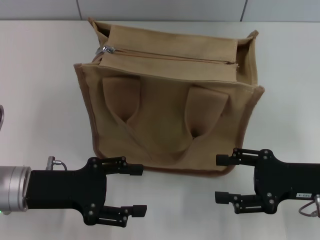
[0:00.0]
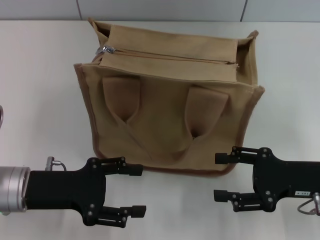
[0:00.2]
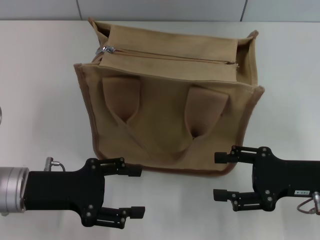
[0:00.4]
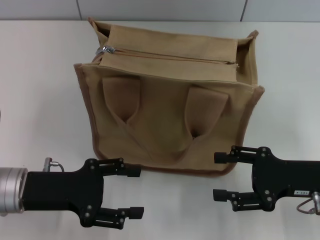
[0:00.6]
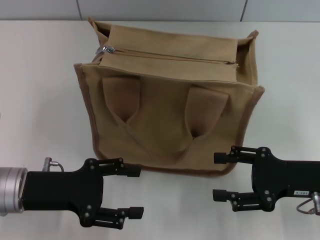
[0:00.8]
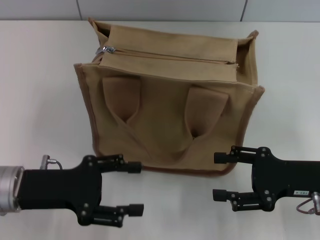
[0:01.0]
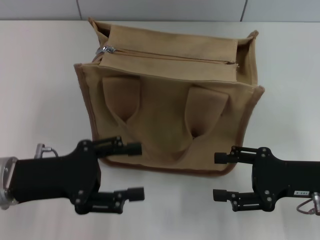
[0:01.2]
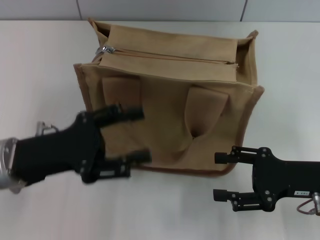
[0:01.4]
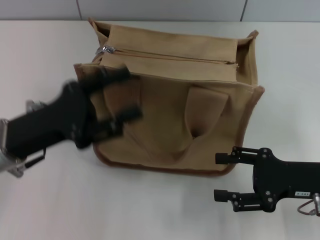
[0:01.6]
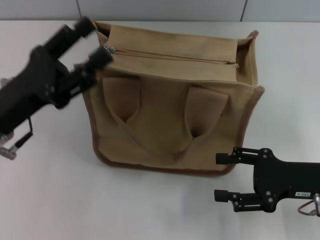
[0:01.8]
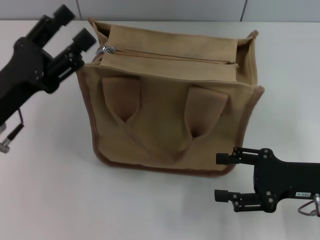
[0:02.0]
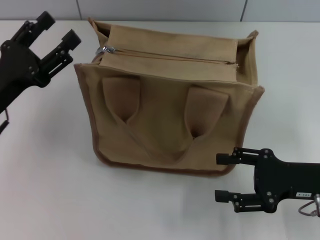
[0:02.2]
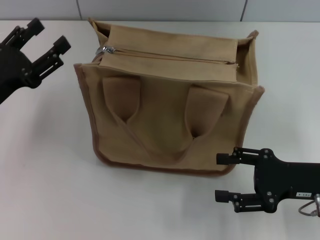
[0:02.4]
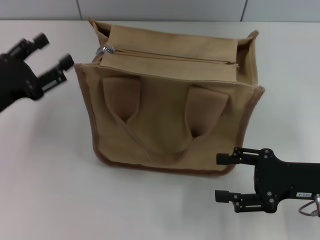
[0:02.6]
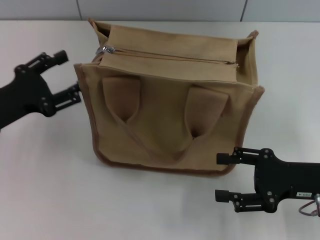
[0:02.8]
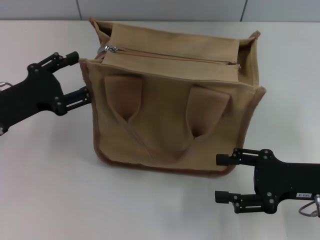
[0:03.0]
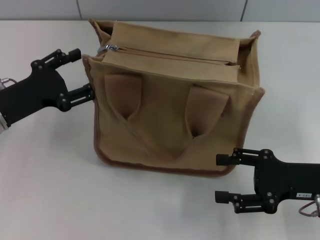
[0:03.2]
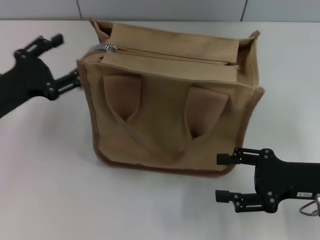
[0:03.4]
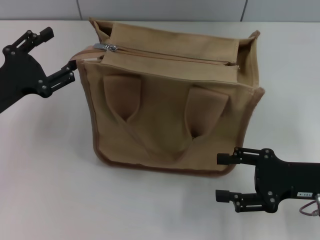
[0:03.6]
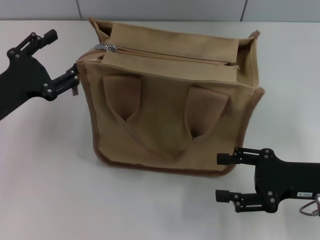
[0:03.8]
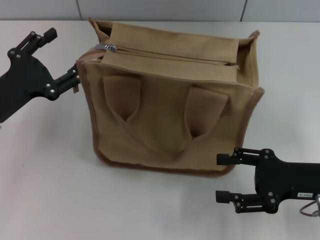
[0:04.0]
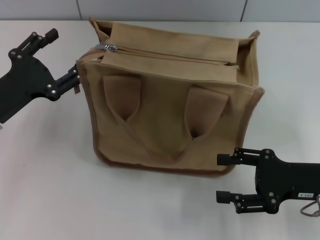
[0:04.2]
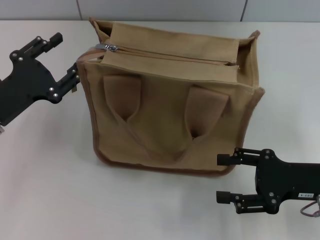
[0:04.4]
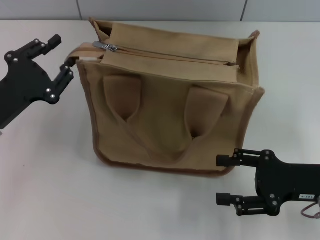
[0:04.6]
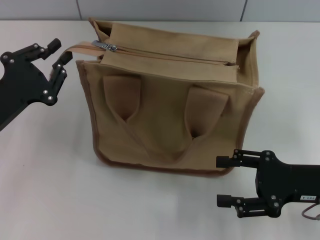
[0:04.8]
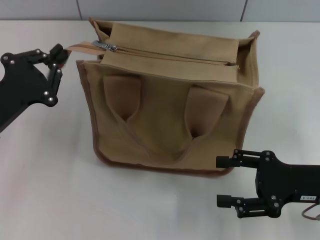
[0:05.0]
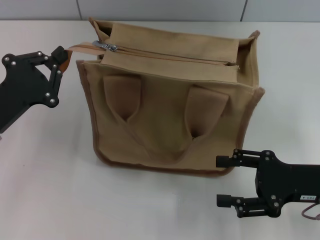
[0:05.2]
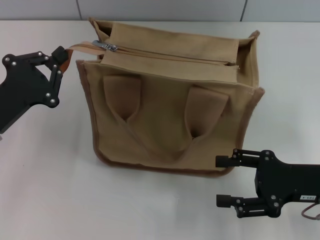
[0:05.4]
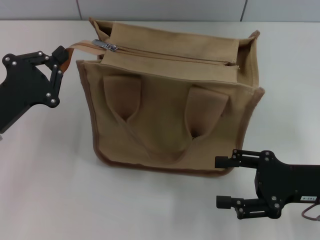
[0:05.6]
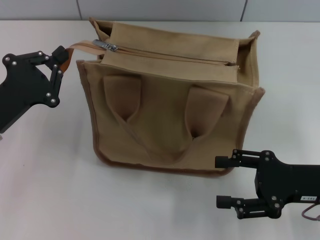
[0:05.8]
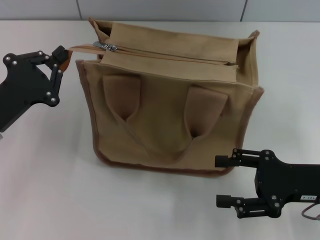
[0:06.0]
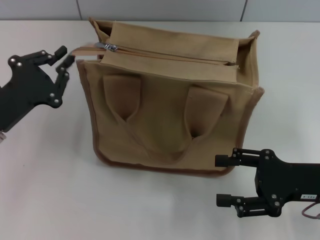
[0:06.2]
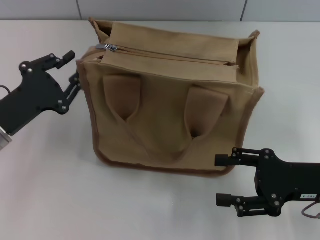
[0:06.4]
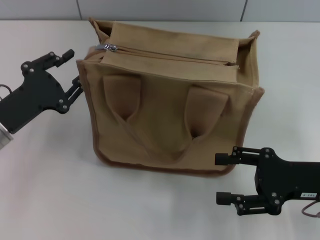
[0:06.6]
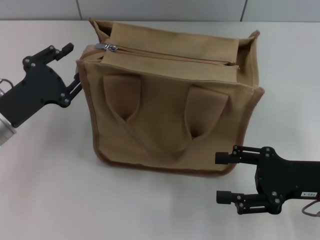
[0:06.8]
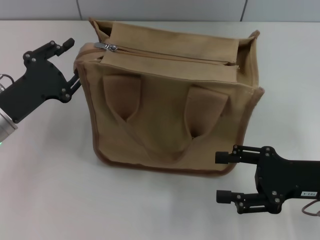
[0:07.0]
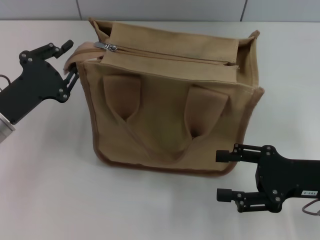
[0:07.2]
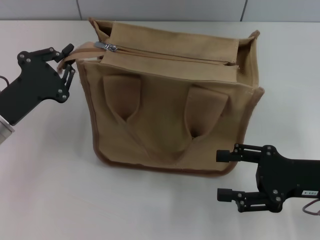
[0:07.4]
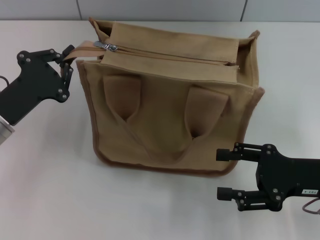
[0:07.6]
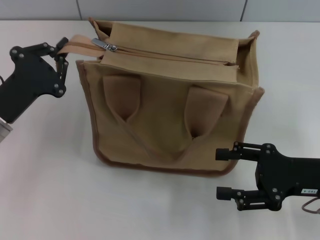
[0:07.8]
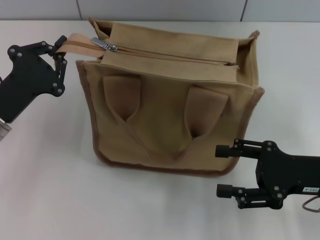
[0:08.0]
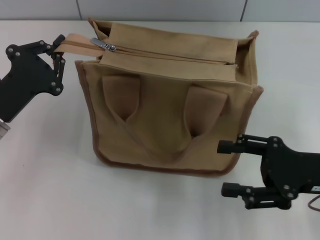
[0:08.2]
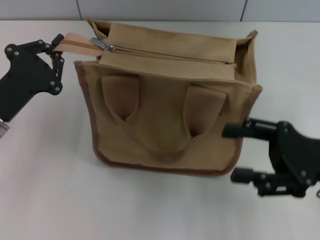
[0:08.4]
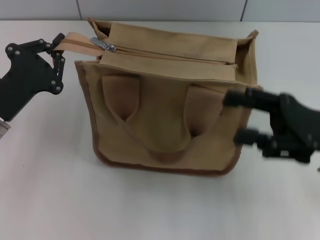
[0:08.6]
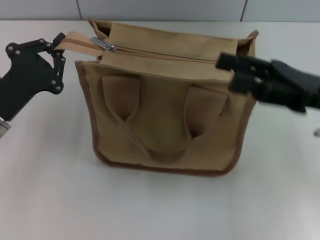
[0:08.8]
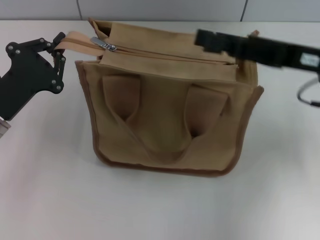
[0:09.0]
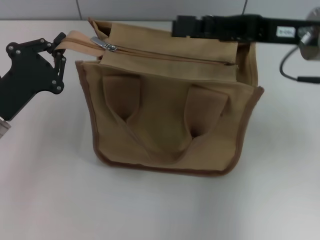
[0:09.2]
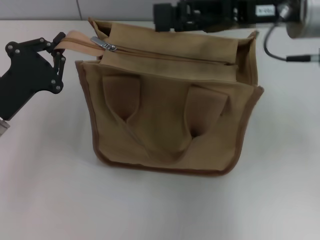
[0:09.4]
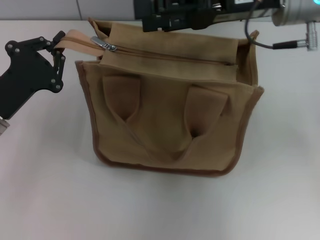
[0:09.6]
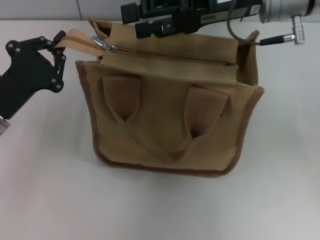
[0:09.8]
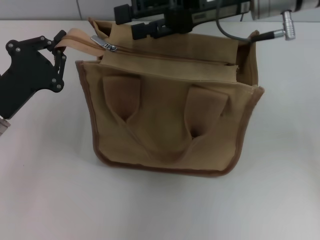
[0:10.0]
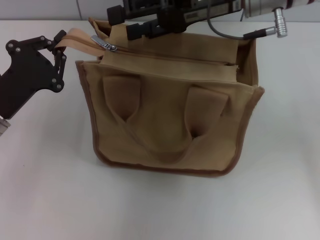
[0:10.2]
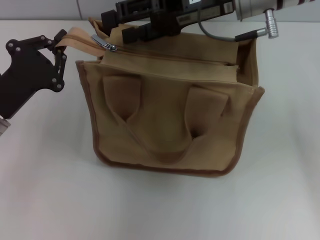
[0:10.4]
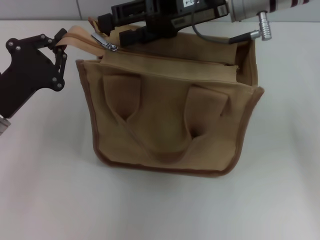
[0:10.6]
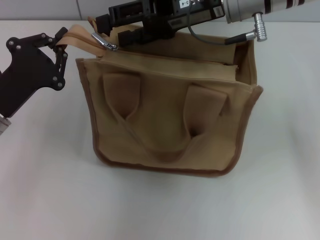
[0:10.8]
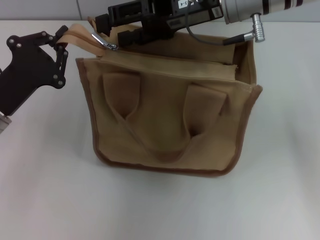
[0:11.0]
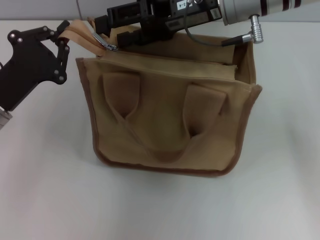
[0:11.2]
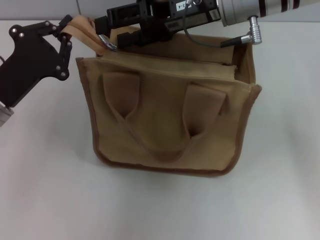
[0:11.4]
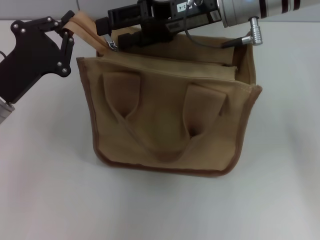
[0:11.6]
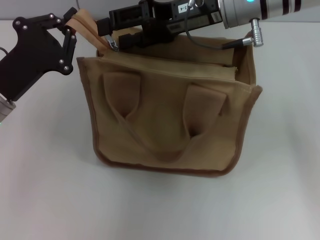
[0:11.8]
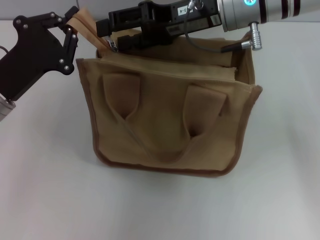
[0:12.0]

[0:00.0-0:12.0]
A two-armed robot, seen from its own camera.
0:01.6 to 0:03.0: The left gripper moves to the left, about 5 cm.
0:04.4 to 0:06.0: The left gripper closes up.
0:06.0 to 0:07.6: The left gripper opens, then closes once more.
0:07.6 to 0:09.0: The right gripper heads upward and forward, covering some 15 cm.
0:09.0 to 0:10.4: The right gripper shifts some 15 cm to the left, forward and upward.
0:10.4 to 0:12.0: There are only small adjustments of the grippers.

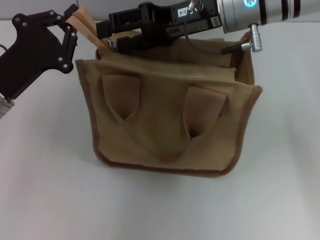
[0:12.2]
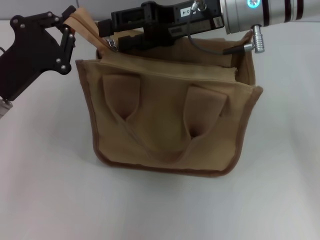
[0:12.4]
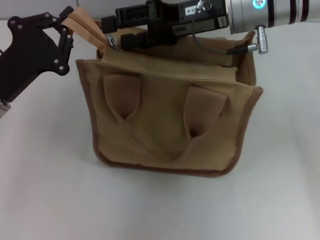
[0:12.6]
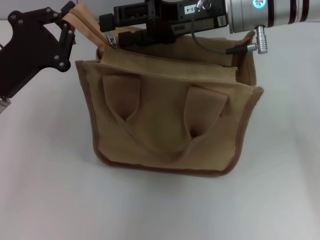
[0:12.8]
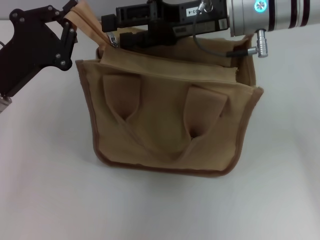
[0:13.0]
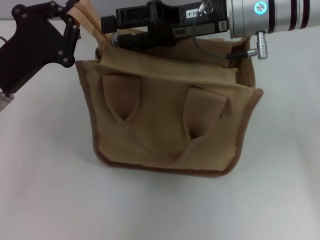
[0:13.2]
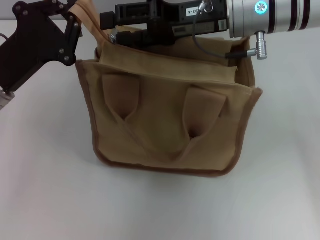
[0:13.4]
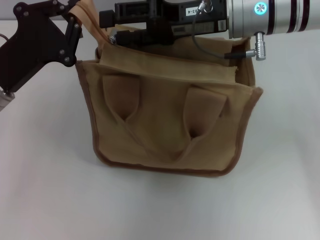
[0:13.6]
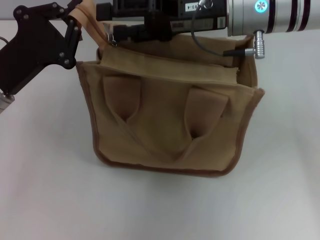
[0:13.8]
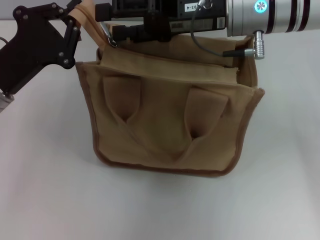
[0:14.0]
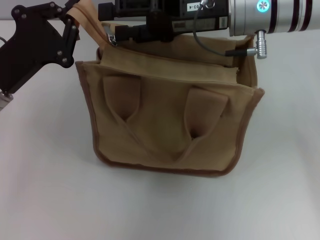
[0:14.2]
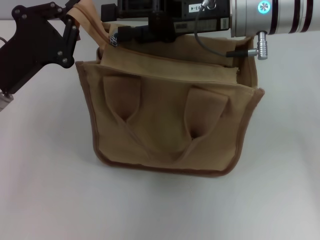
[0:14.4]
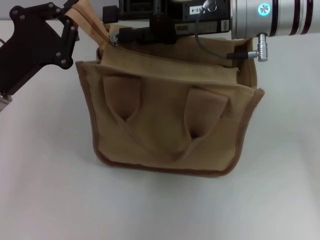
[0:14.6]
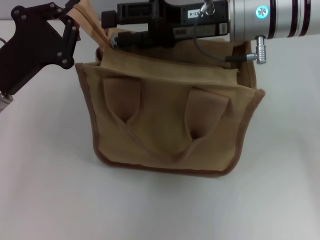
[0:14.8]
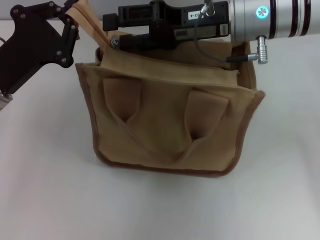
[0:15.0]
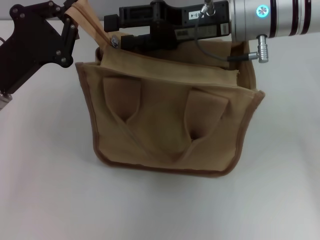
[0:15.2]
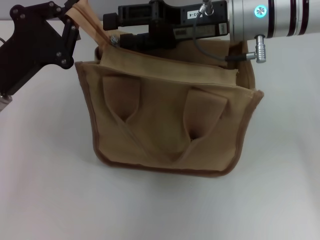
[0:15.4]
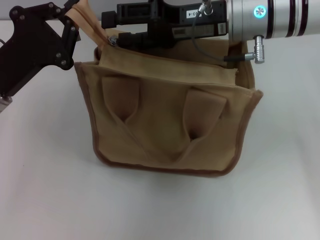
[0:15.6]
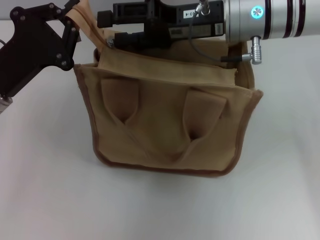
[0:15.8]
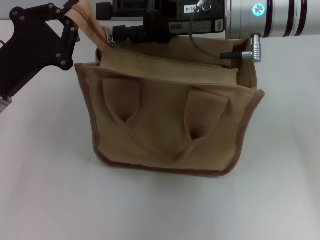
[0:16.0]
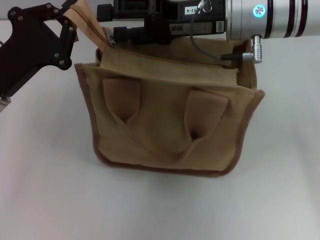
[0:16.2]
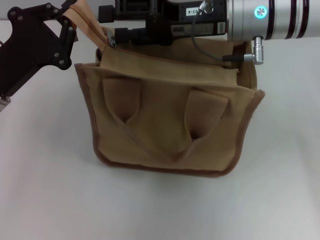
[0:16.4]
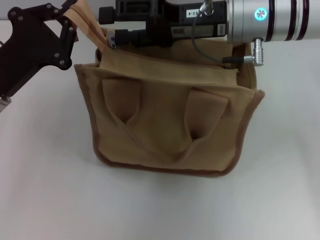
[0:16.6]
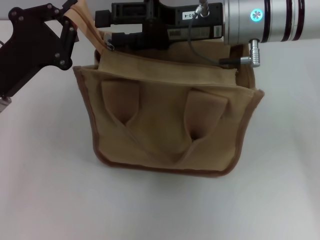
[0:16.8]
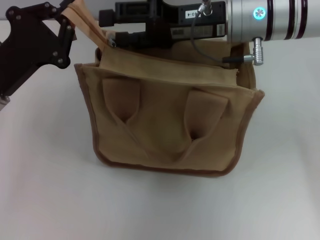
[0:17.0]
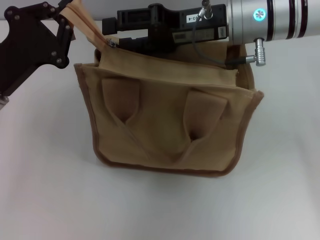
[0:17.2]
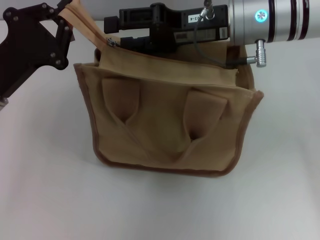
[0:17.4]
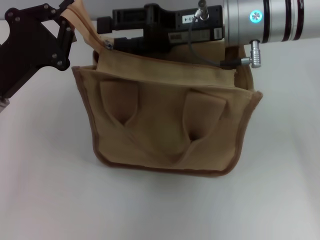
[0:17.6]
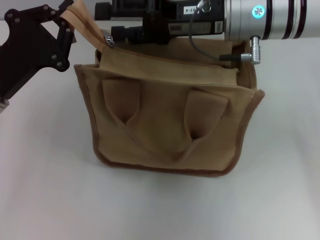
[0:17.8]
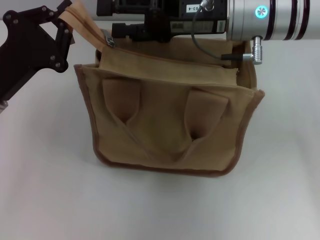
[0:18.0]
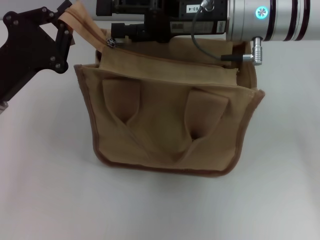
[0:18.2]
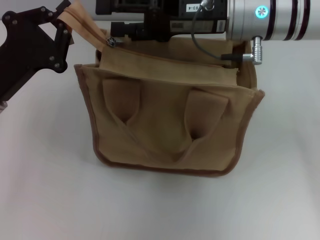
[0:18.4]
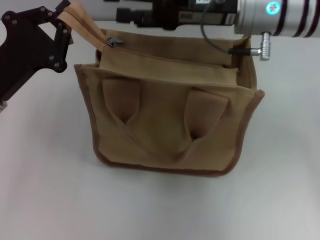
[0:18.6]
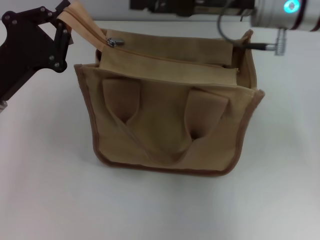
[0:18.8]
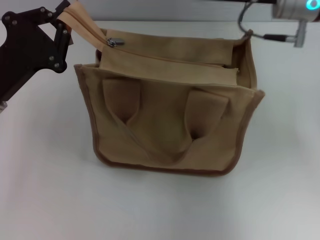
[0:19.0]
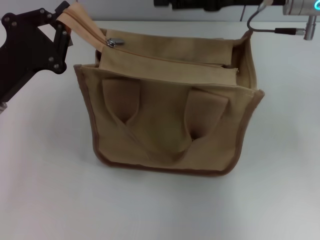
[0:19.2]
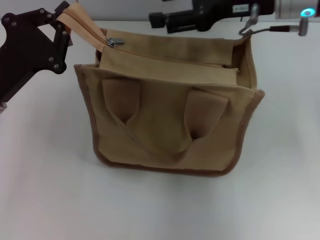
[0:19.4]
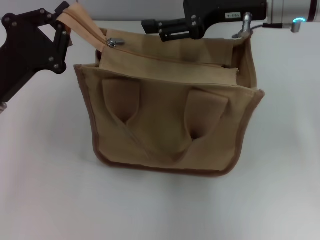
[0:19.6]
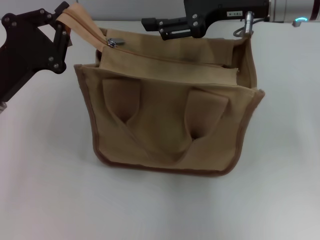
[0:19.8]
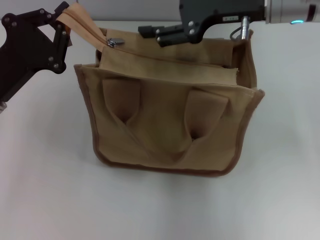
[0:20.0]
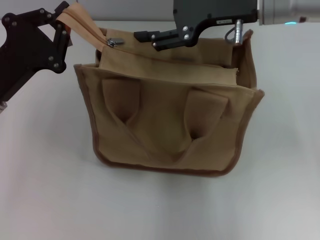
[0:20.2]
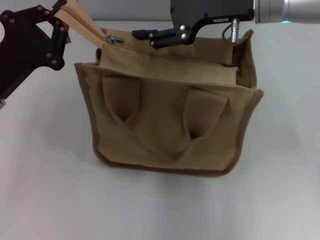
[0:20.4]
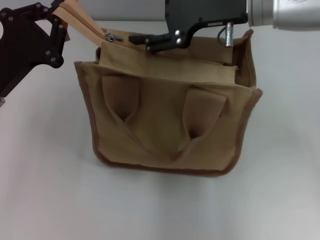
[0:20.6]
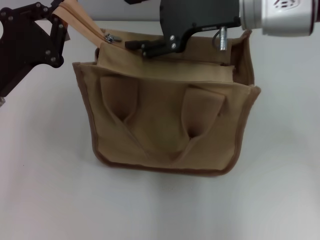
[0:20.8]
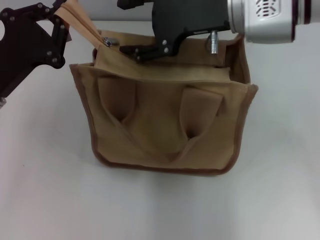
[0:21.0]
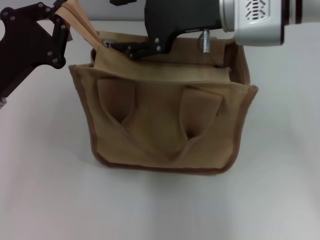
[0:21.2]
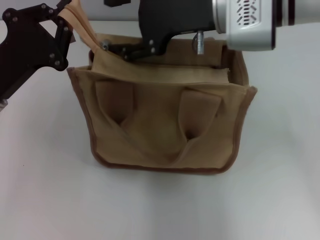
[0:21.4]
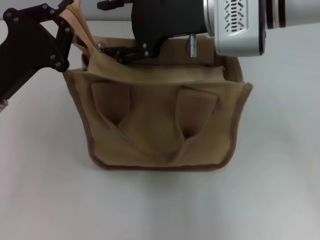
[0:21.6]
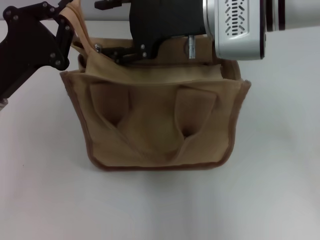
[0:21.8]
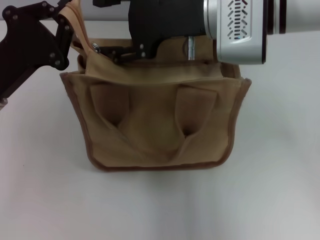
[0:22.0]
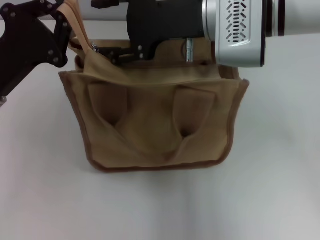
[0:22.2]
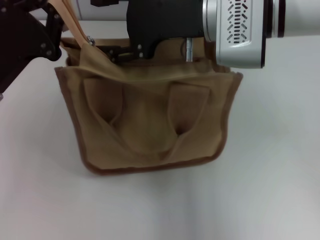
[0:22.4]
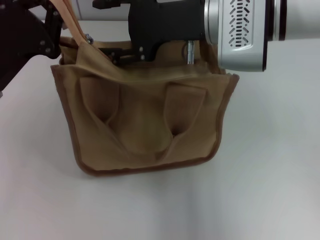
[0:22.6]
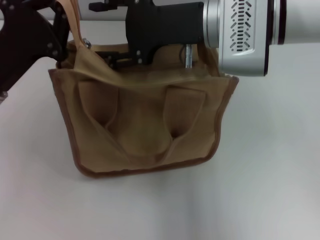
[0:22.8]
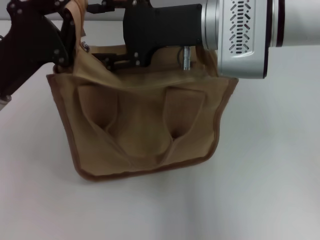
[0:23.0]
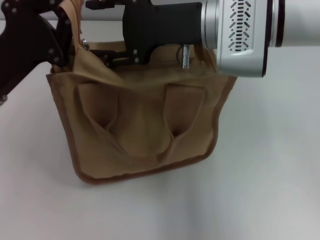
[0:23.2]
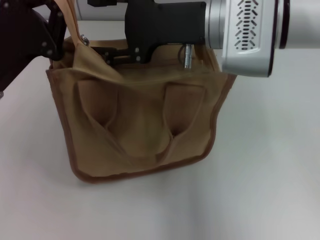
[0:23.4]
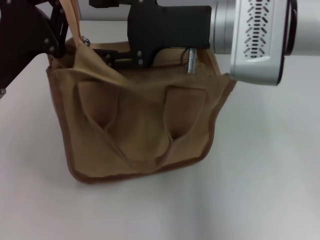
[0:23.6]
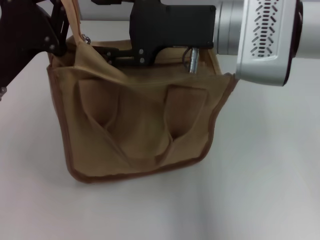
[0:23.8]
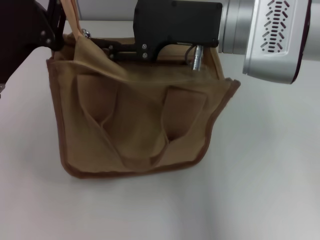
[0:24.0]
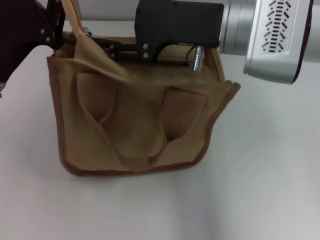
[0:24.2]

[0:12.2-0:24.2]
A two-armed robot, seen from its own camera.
0:12.2 to 0:13.8: The grippers move only a little.
0:13.8 to 0:18.2: Both grippers stay about where they are.
0:18.2 to 0:19.8: The right gripper changes place by some 5 cm.
0:19.8 to 0:21.2: The right gripper moves to the left, about 5 cm.
0:22.6 to 0:24.2: The grippers move only a little.
